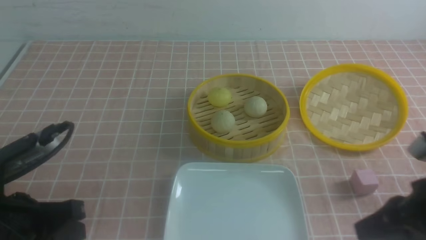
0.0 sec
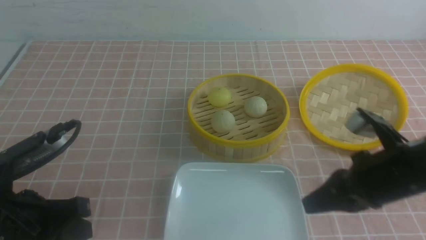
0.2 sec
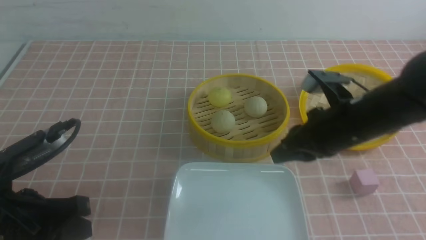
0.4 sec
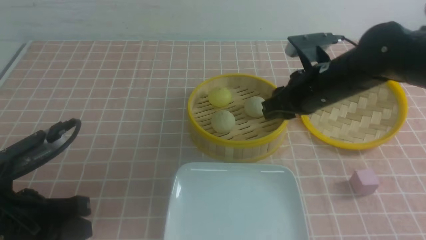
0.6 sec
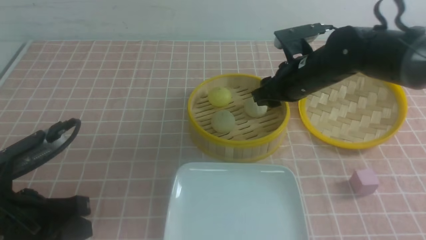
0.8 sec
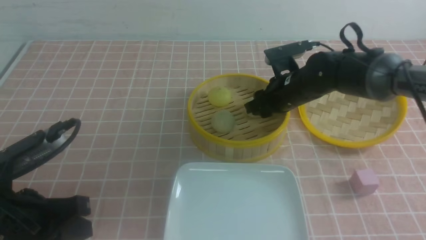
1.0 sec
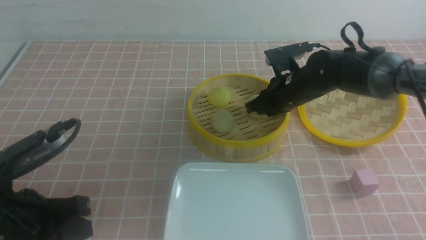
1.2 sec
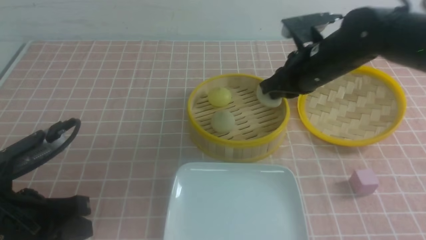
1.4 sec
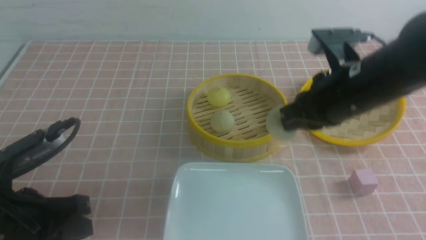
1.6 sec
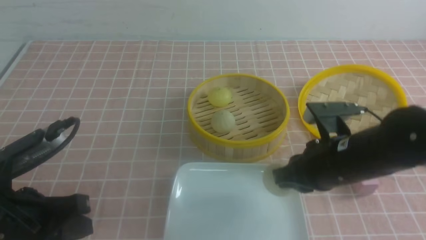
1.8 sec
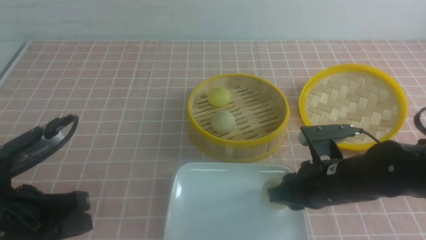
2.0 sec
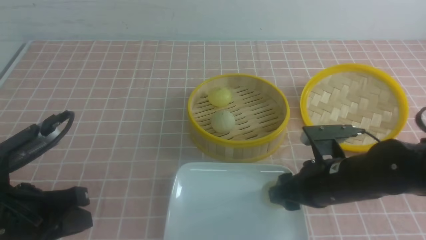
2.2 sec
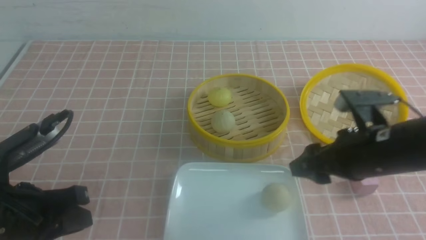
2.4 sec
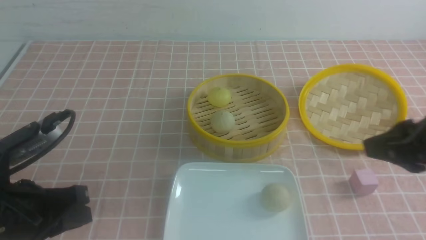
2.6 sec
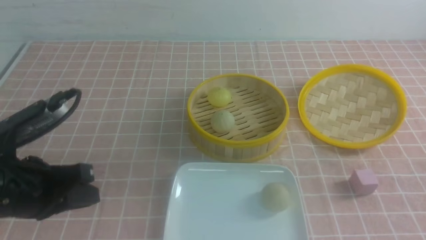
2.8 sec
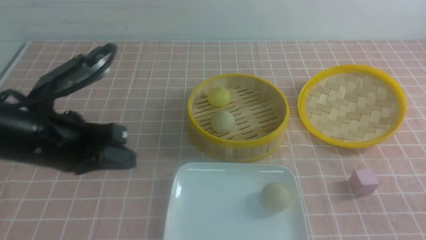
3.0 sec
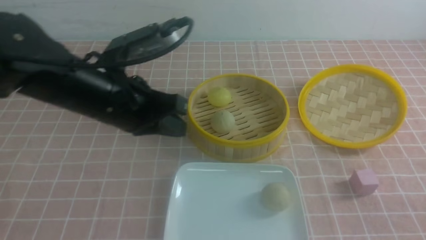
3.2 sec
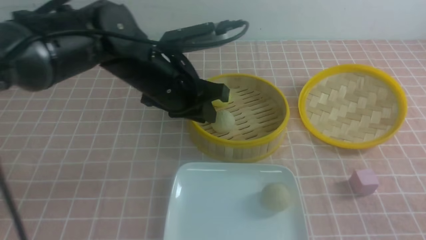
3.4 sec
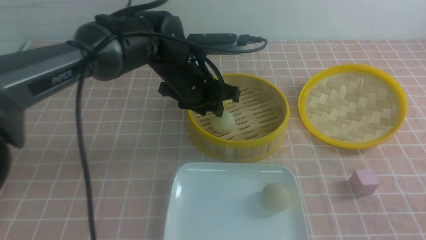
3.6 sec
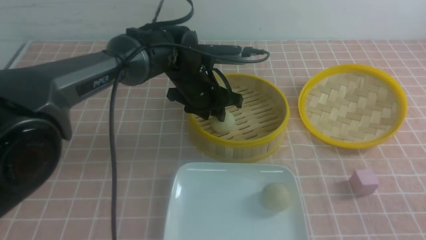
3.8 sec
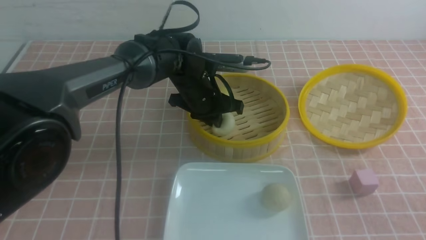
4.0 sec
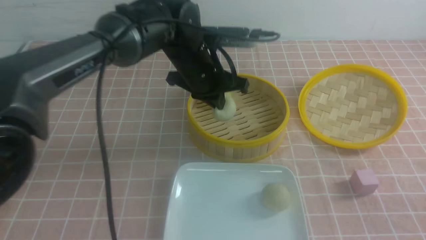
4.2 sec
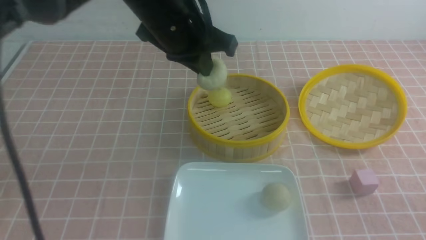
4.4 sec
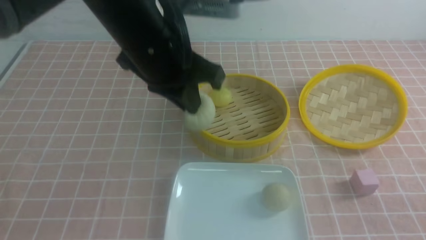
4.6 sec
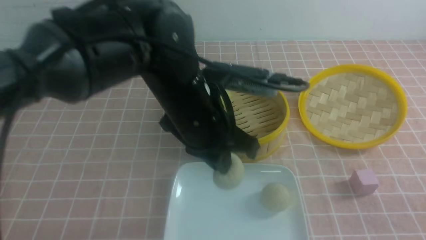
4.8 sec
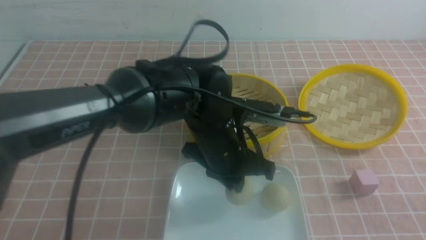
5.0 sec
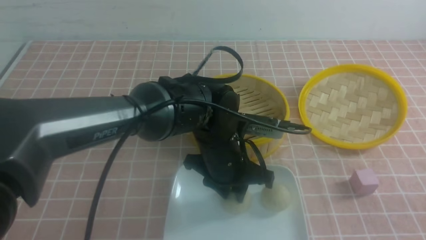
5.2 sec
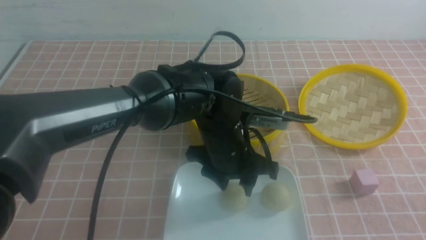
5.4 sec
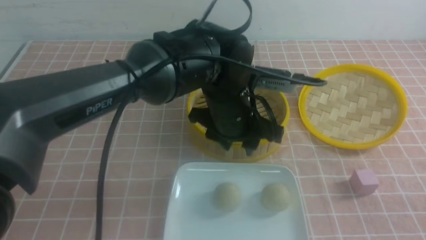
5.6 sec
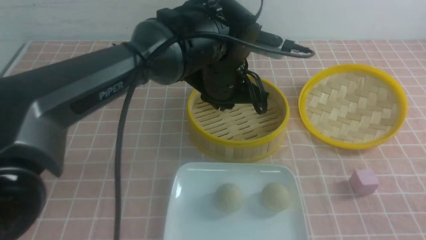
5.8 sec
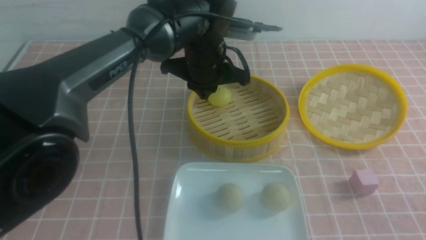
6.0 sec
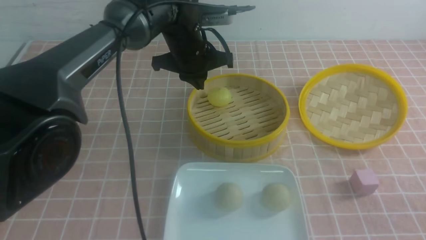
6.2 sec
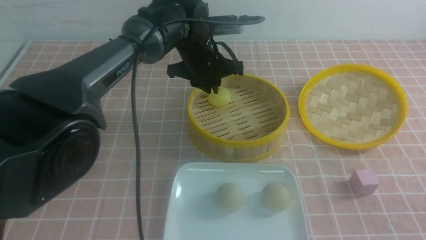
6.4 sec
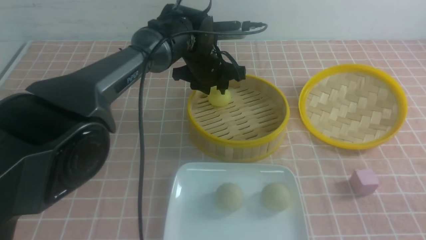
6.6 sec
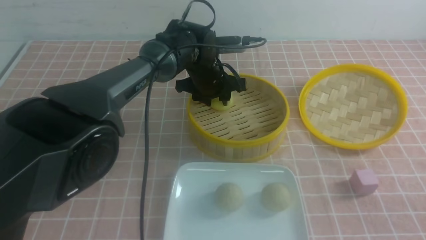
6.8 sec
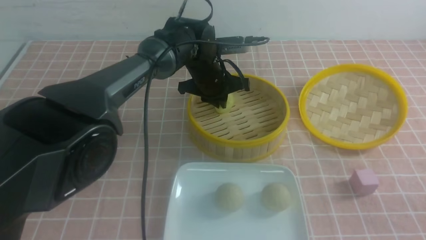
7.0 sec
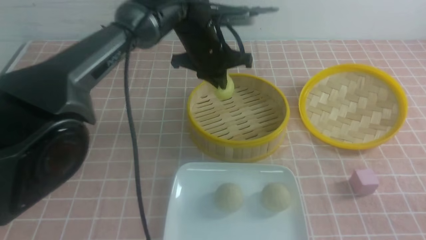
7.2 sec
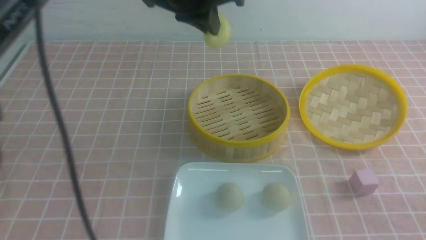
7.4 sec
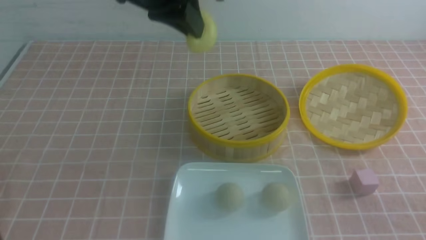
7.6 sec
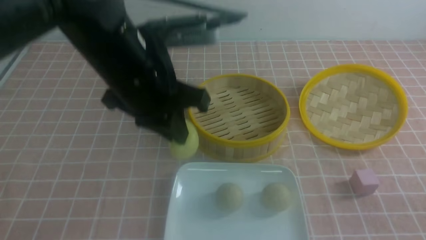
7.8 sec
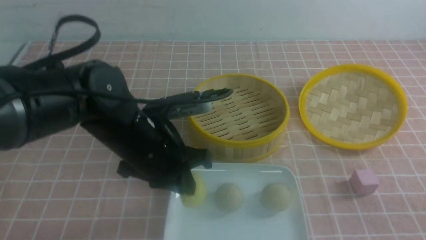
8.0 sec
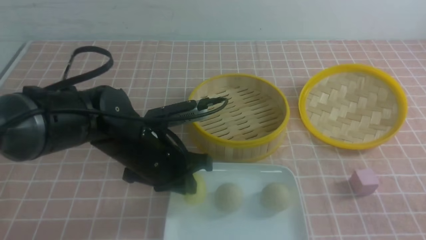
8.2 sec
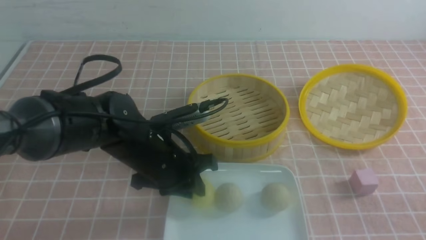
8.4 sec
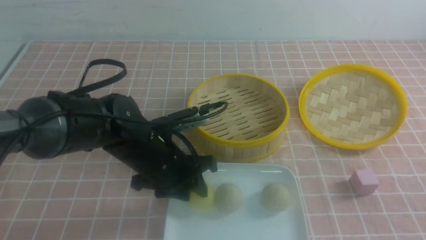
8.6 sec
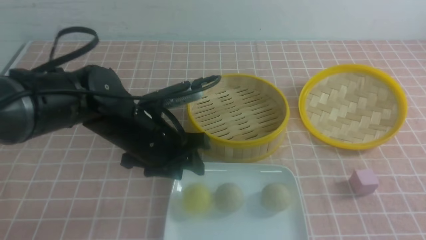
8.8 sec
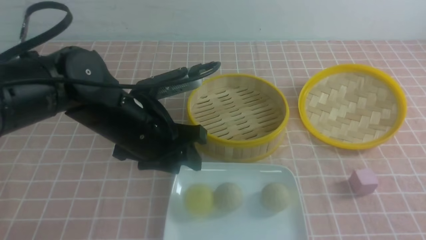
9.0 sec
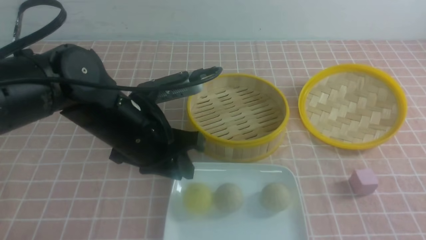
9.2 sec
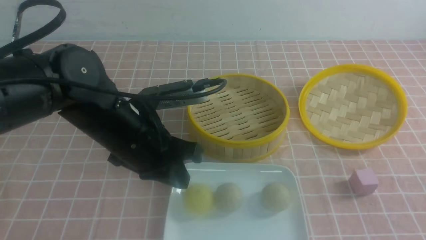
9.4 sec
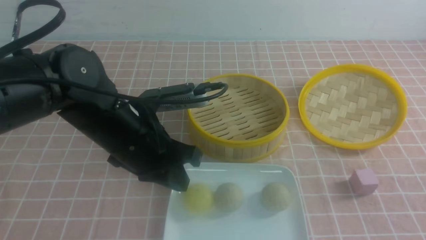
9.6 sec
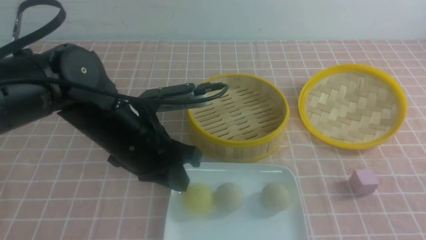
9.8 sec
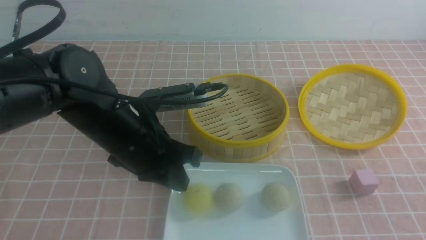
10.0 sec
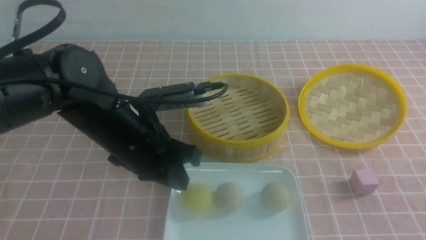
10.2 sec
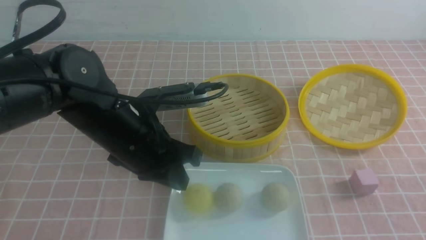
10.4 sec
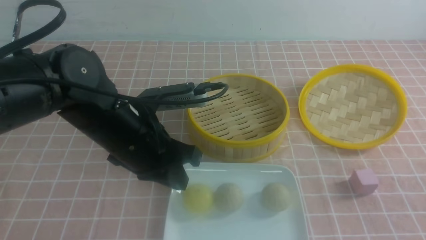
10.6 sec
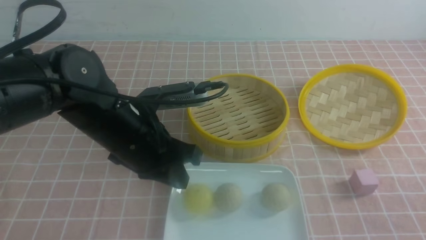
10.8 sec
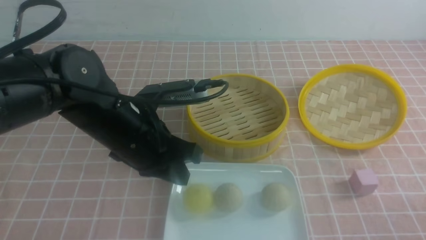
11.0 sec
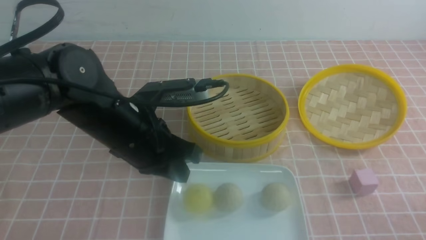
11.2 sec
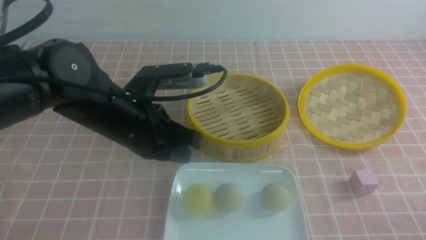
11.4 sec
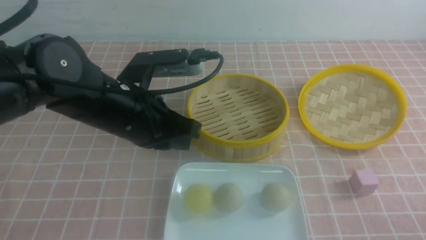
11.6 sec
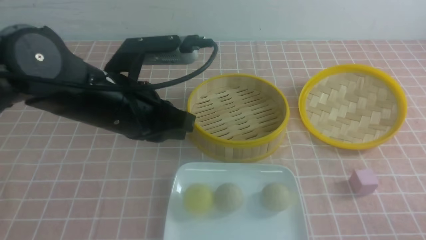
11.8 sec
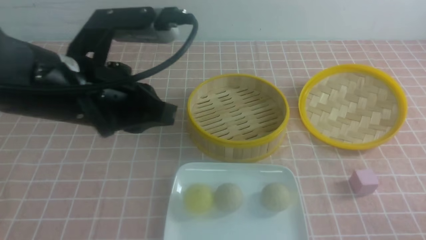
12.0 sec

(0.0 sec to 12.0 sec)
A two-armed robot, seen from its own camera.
Step, 1.4 sec - 2.2 sec: use the right arm to put the steamed stuffed bun into the plate.
Step, 2.4 sec - 4.0 sec: use the left arm to grab the steamed stuffed bun that is closest to it.
Step, 4.2 sec - 5.2 sec: use the left arm to put the steamed stuffed bun into the plate.
Step, 5.6 sec - 6.8 sec: use the left arm to grab the steamed stuffed bun that is closest to it.
Step, 7.0 sec - 8.6 sec: use the left arm to put the steamed stuffed bun into the plate.
0.0 sec - 1.6 sec: The right gripper is displaced forward and to the left by some 15 cm, and opens, then closes again.
1.6 sec - 3.0 sec: The right gripper is displaced backward and to the right by roughly 25 cm, and opens, then closes again. The left gripper is displaced forward and upward by roughly 10 cm.
3.0 sec - 4.4 sec: The left gripper heads to the right, forward and upward, covering some 20 cm, and opens, then closes once more.
4.4 sec - 6.0 sec: The left gripper shifts roughly 10 cm forward and downward, and opens, then closes once more.
6.0 sec - 7.6 sec: The left gripper travels upward, backward and to the left by about 15 cm, and opens, then closes again.
7.6 sec - 9.0 sec: The right gripper travels upward and backward by about 10 cm, and closes its fingers, while the left gripper shifts roughly 15 cm downward, and opens.
9.0 sec - 10.4 sec: The right gripper travels downward and forward by approximately 10 cm. Meanwhile the left gripper closes its fingers.
10.4 sec - 12.0 sec: The right gripper heads downward, covering approximately 10 cm. Meanwhile the left gripper heads upward, covering approximately 10 cm.

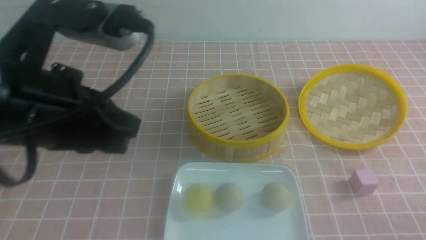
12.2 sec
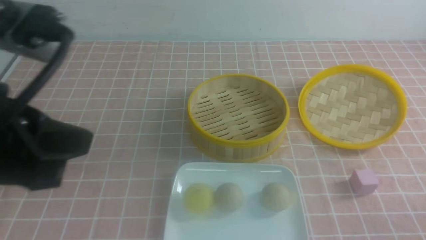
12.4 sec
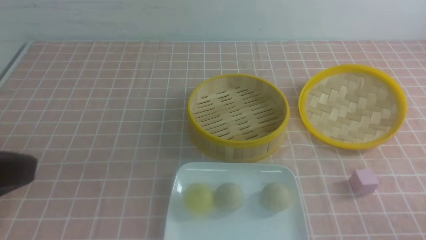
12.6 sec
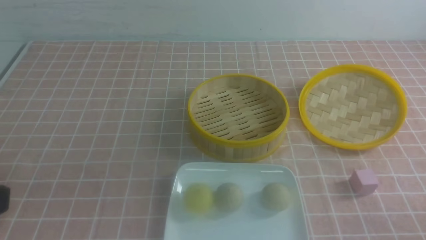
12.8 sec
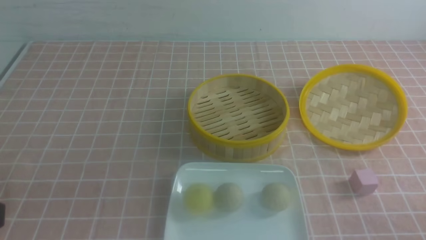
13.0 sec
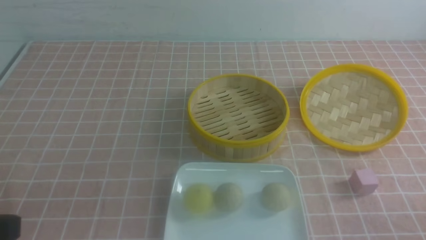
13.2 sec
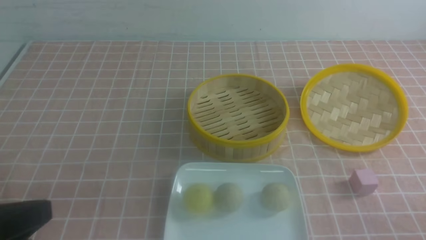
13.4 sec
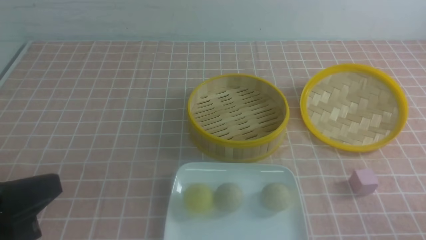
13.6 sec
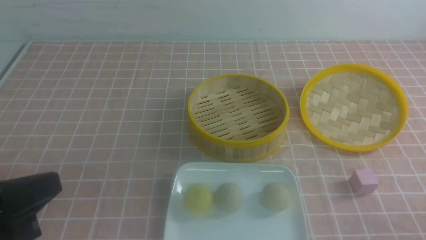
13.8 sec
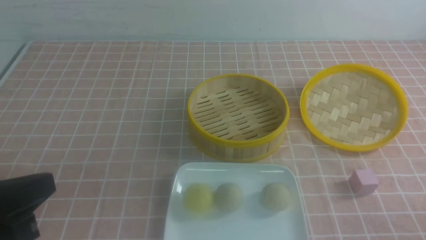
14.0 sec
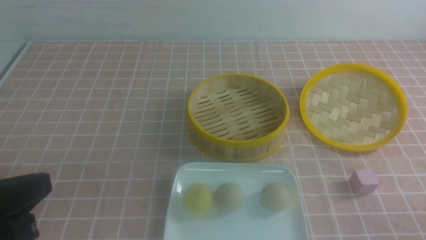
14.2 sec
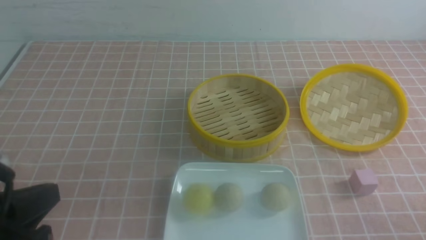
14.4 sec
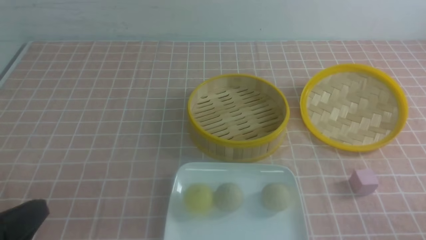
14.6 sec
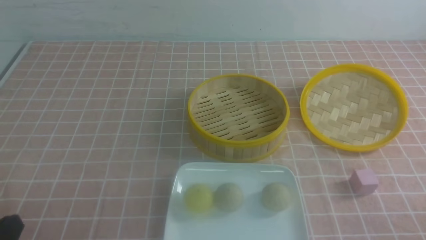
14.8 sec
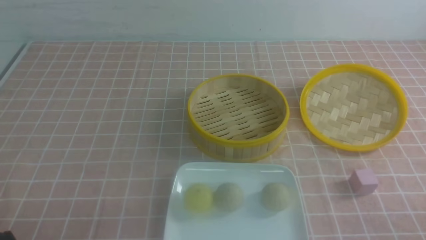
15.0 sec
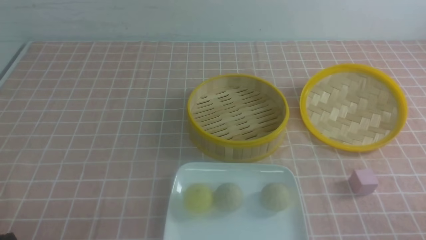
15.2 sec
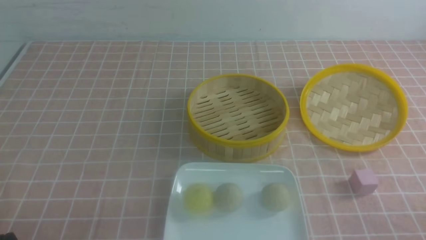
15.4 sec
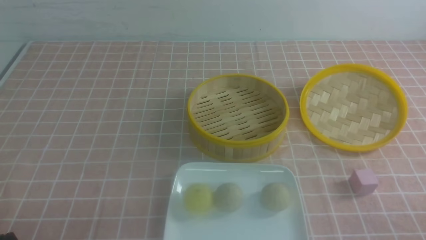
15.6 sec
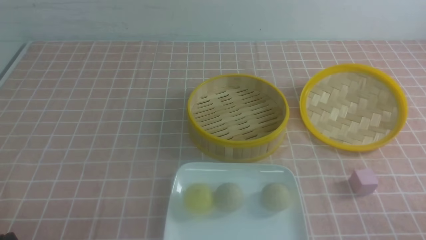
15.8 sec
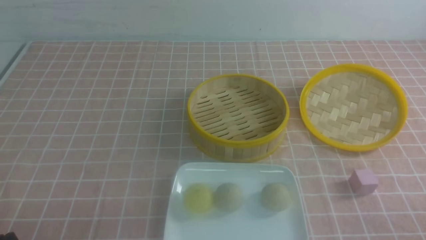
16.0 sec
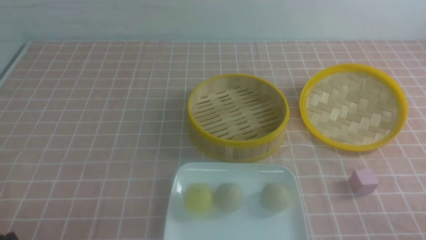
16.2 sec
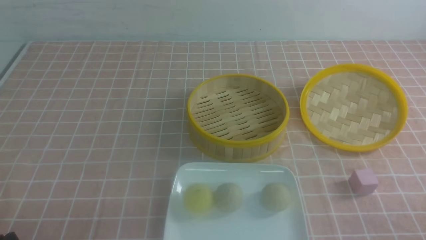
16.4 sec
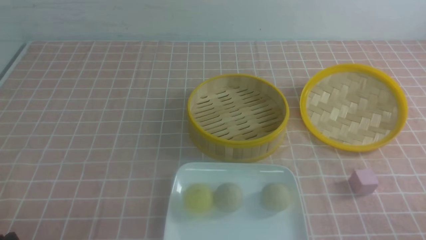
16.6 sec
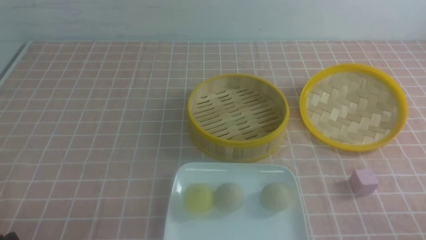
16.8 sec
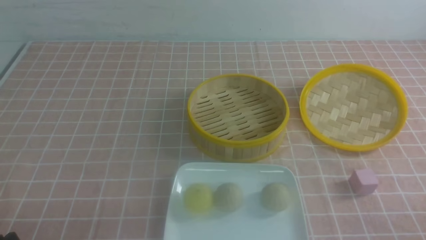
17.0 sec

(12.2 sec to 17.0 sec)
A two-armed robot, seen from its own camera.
12.2 sec - 13.8 sec: The left gripper goes about 10 cm backward, downward and to the left.
13.8 sec - 15.4 sec: The left gripper moves downward, about 15 cm.
15.4 sec - 17.0 sec: Both grippers stay put.
